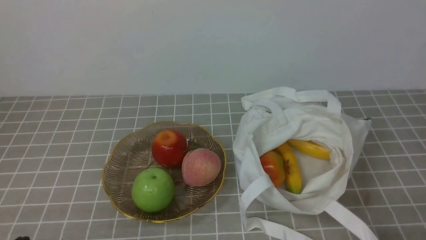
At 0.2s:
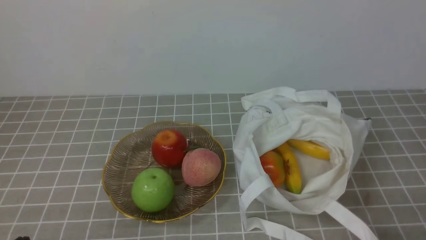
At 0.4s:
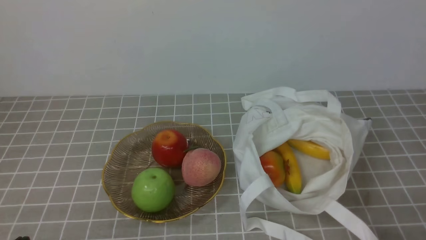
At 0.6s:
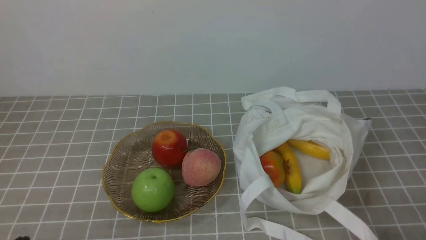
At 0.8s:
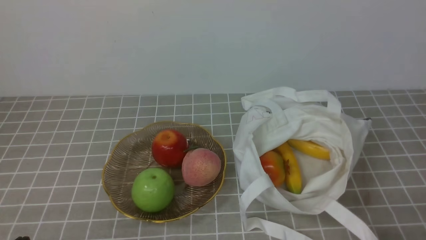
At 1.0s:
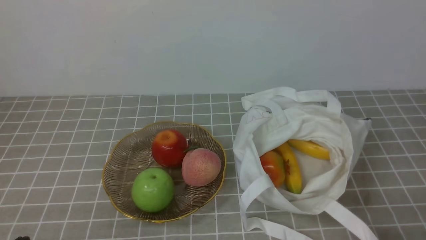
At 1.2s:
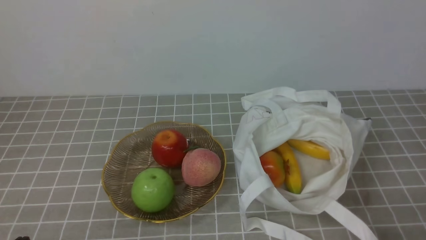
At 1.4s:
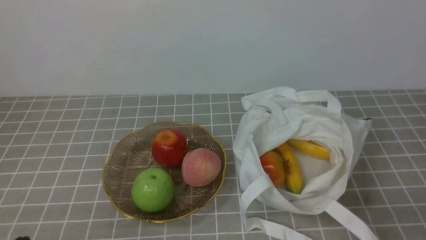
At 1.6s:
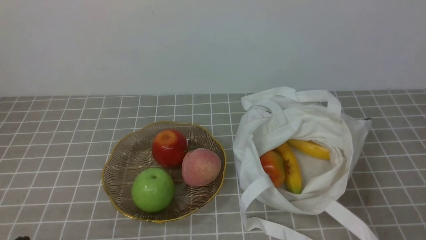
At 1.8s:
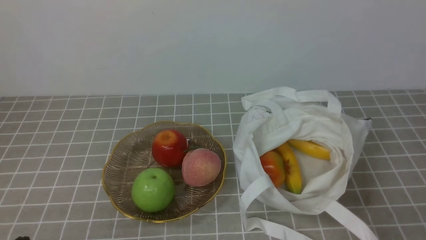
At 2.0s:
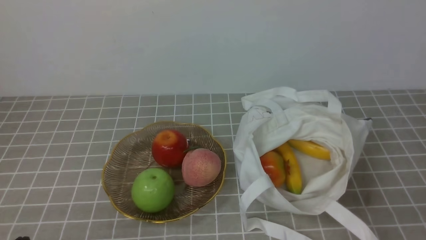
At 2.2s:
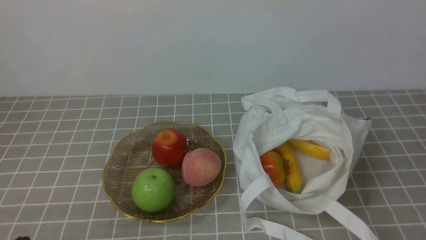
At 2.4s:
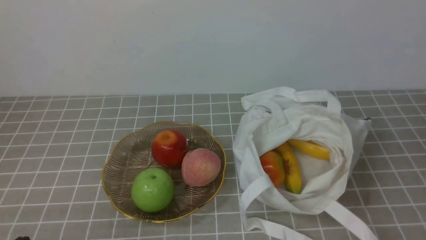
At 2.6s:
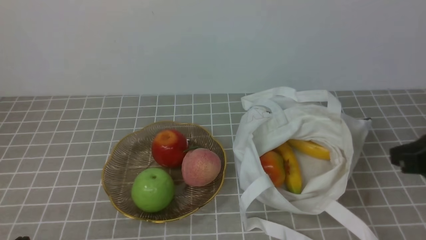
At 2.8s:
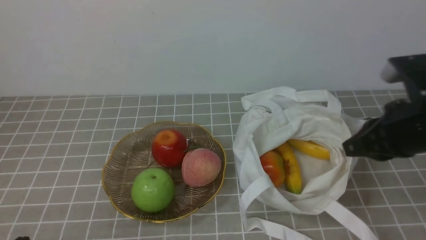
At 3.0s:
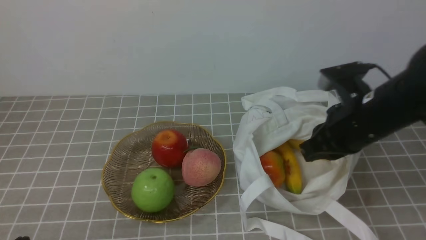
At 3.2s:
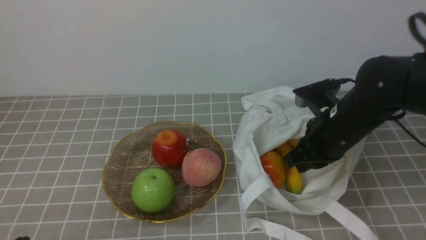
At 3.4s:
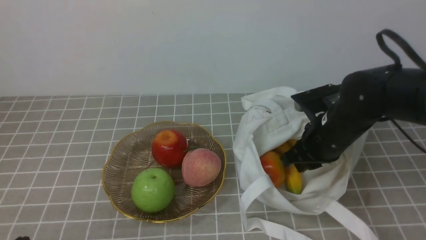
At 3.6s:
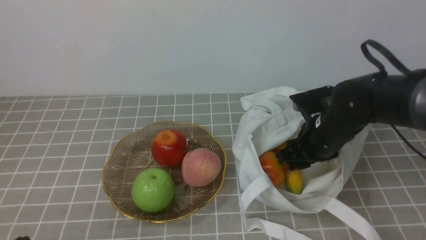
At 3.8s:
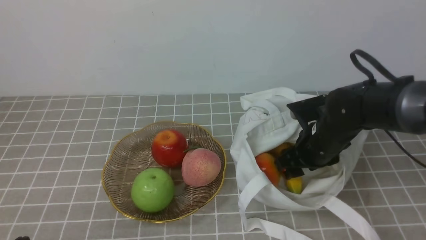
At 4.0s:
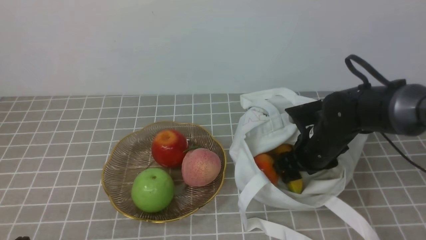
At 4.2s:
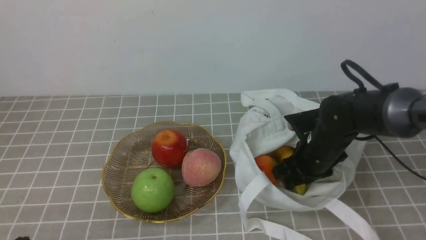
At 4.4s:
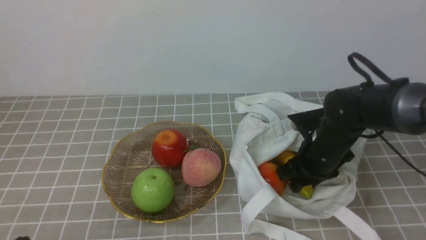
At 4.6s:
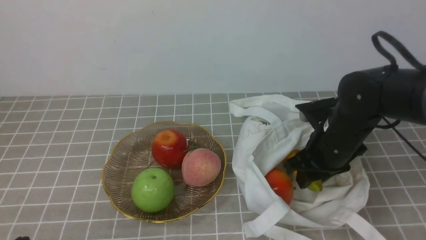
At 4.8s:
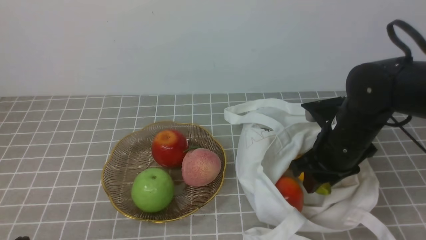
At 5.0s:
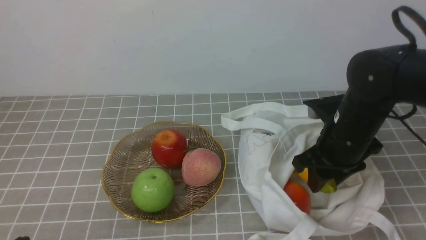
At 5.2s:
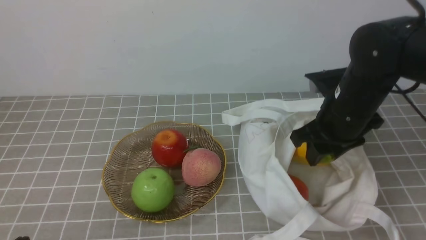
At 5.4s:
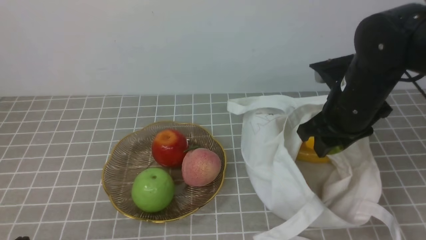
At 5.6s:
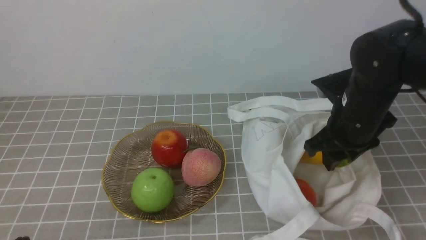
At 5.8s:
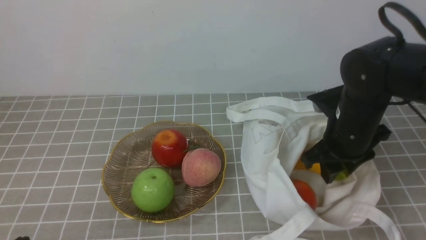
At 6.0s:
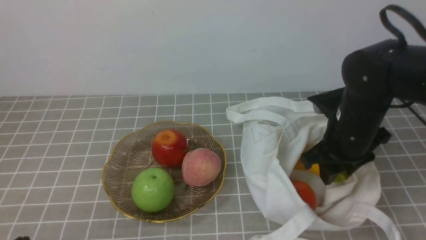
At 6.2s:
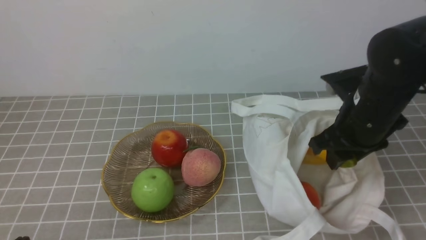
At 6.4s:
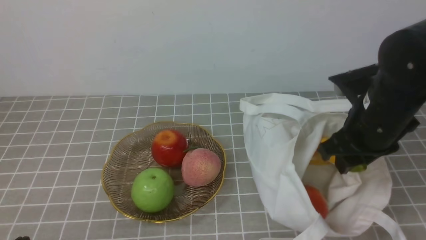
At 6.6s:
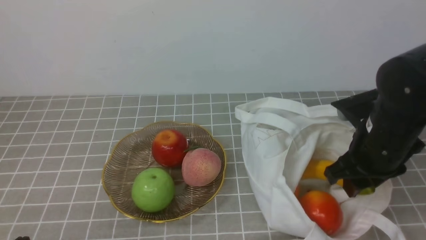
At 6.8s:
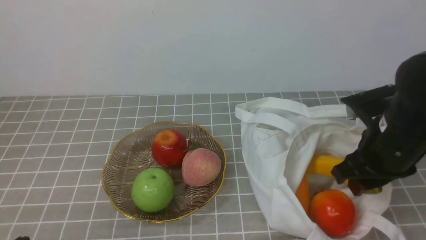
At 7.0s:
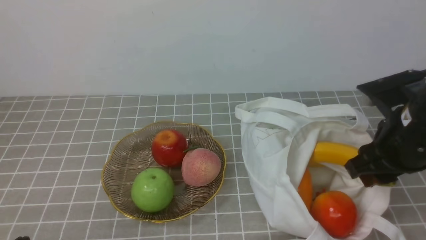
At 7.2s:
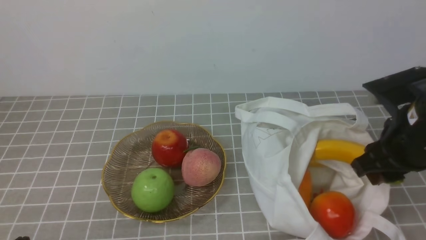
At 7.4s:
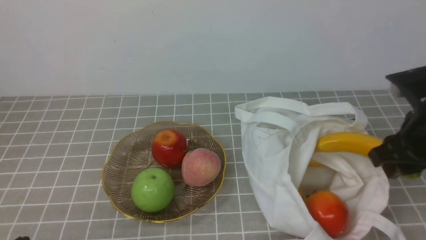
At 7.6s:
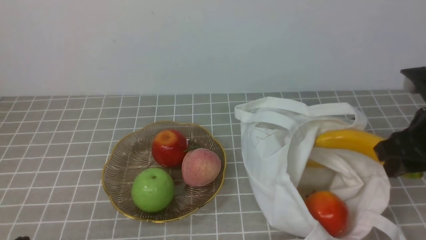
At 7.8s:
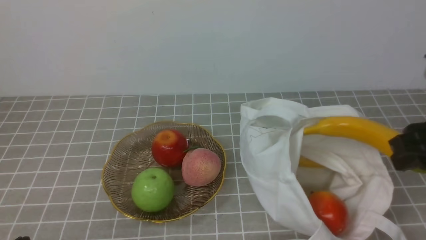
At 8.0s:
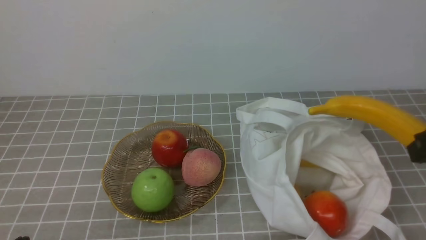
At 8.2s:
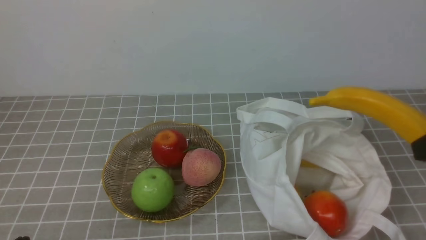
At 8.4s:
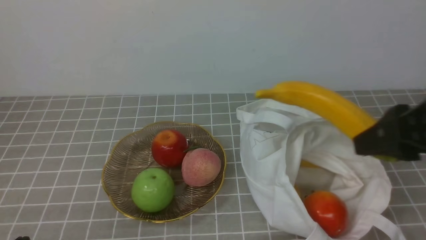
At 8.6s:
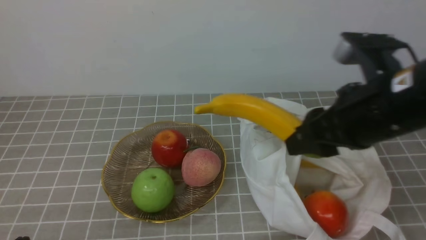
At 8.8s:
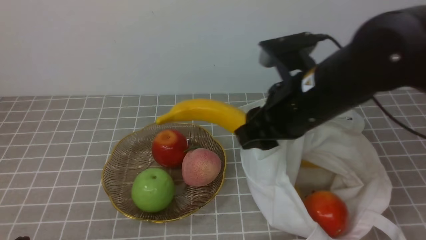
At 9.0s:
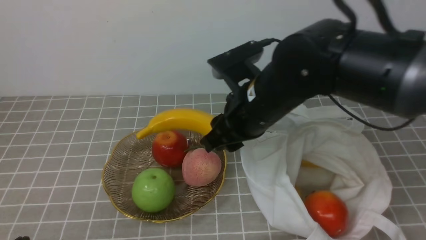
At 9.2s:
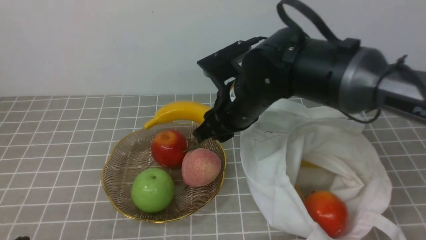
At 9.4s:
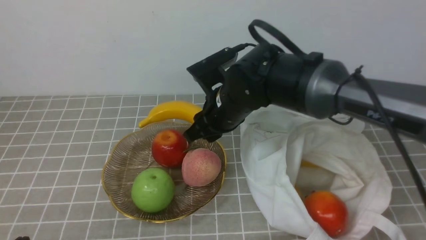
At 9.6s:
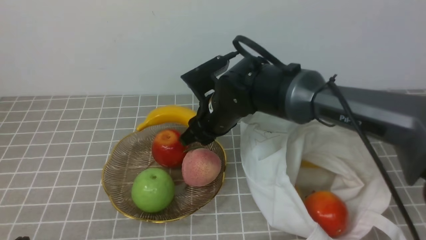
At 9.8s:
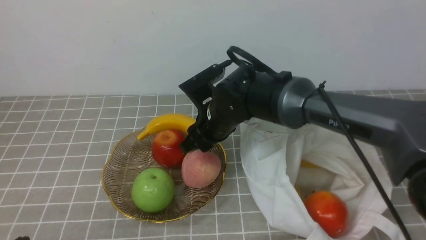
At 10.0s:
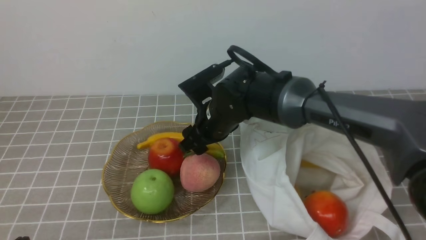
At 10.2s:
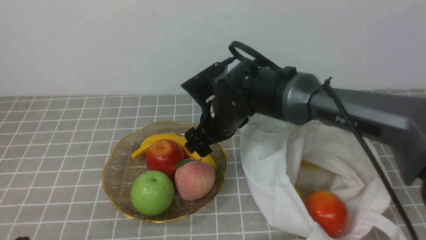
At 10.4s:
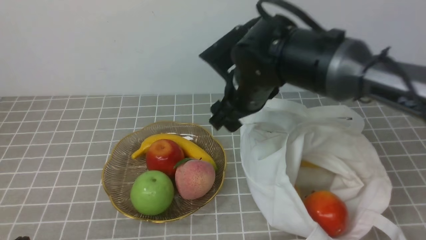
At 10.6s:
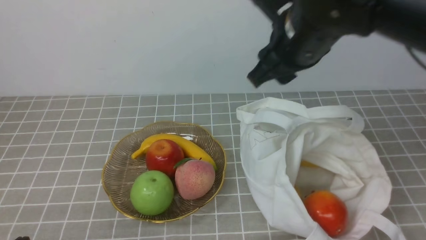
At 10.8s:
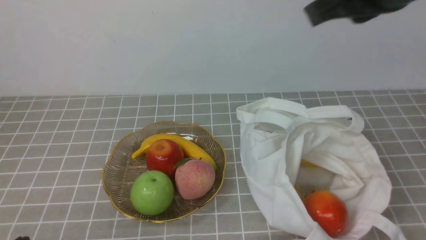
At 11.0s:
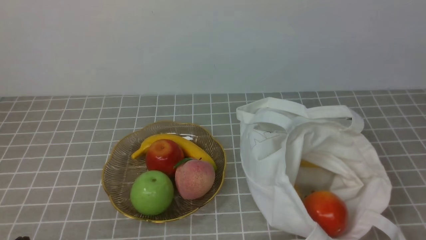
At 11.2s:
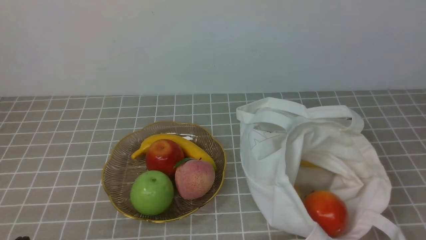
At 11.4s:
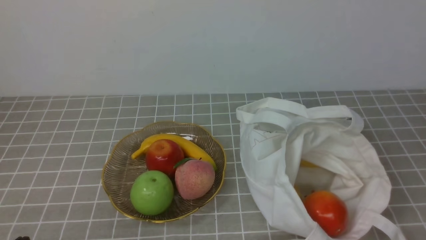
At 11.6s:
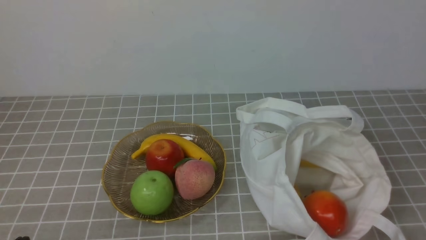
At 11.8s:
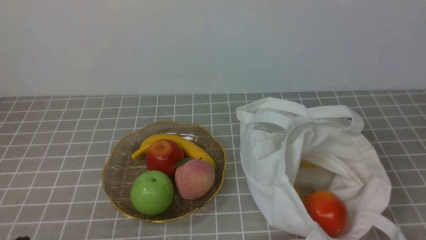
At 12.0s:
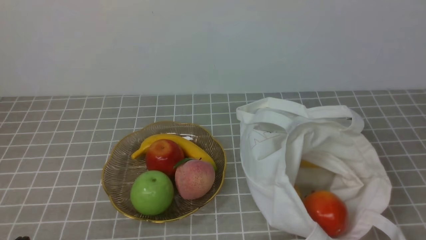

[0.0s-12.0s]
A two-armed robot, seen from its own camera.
Step, 0.0s to 4.4s: use the right arm to grab a banana from the bag.
Step, 4.6s to 10.0s: use the right arm to put the banana into the empty plate on the right.
1.6s to 3.0s: The right gripper moves forward and to the left, approximately 25 cm.
3.0s to 4.4s: The right gripper is displaced downward by some 10 cm, and opens.
4.4s to 6.0s: The right gripper is displaced upward by about 5 cm.
6.0s to 7.6s: The right gripper is displaced backward, upward and to the right by approximately 10 cm.
7.6s to 9.0s: The right gripper moves to the left, approximately 20 cm.
9.0s to 10.4s: The right gripper goes downward and returns, some 10 cm each way, and opens its fingers.
10.4s to 12.0s: The right gripper shifts some 40 cm backward and to the right, and closes.

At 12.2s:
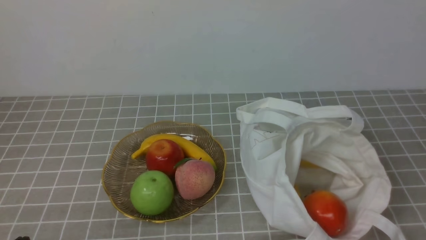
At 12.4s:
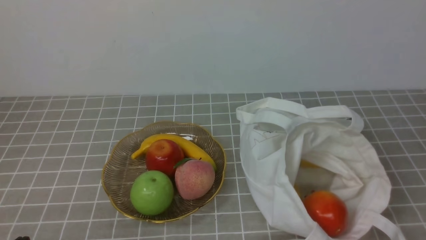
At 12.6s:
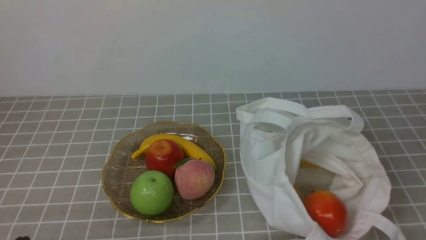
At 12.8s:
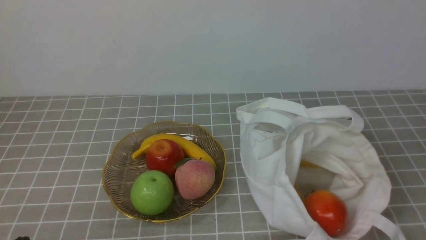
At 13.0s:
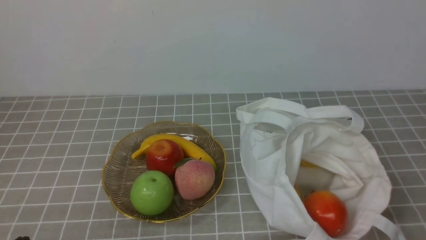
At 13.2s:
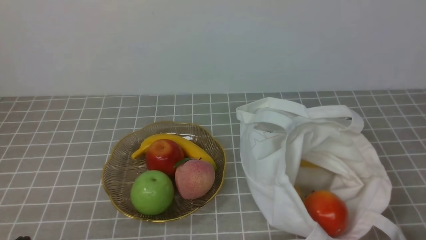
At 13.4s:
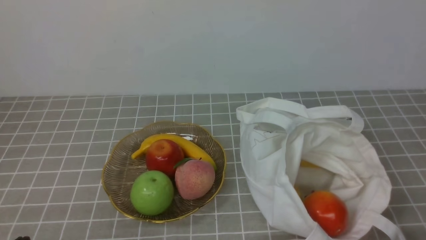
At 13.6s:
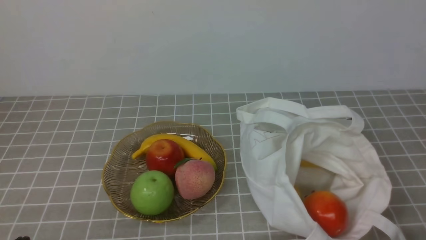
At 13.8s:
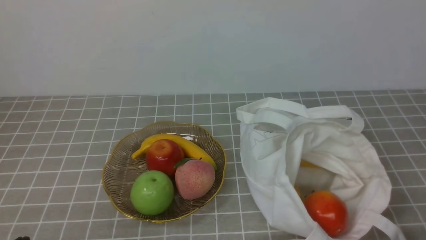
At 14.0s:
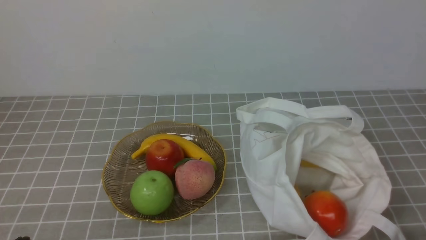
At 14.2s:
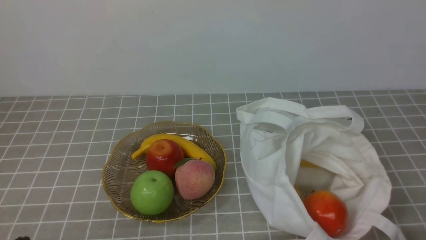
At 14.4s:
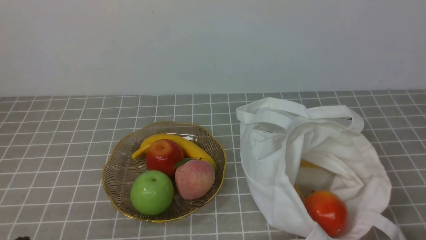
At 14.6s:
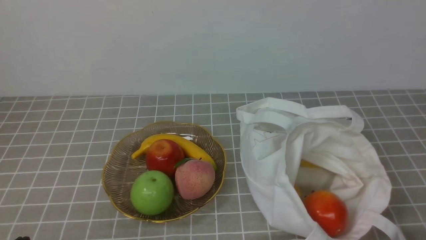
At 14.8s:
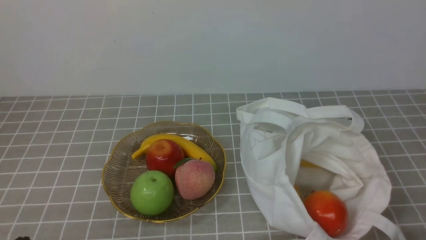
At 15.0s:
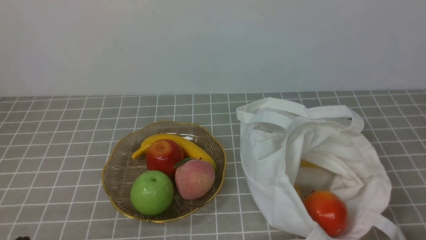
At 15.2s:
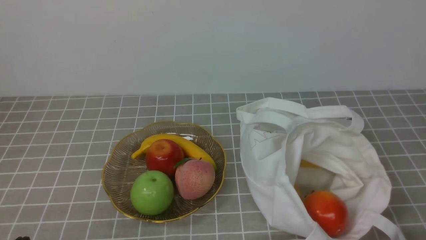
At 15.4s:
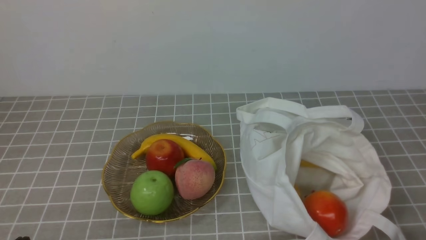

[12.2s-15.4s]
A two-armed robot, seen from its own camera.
13.8s to 15.4s: The two grippers keep their place.

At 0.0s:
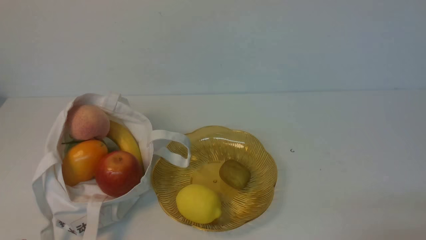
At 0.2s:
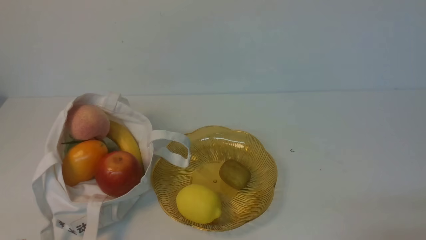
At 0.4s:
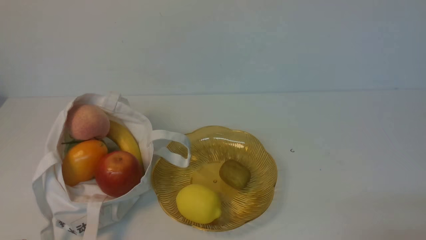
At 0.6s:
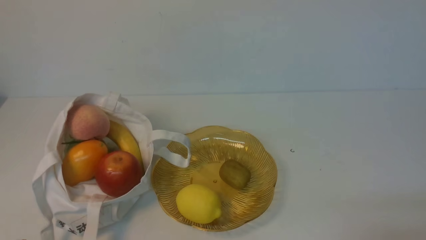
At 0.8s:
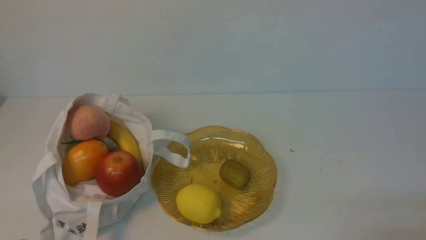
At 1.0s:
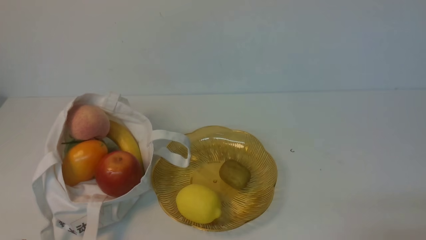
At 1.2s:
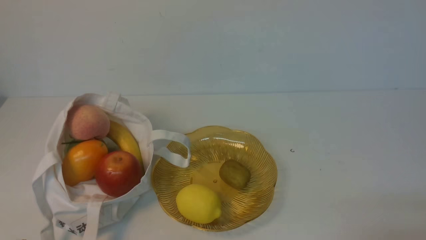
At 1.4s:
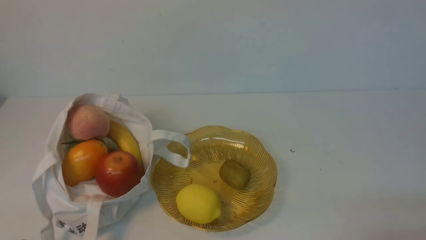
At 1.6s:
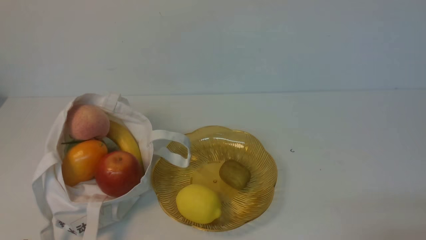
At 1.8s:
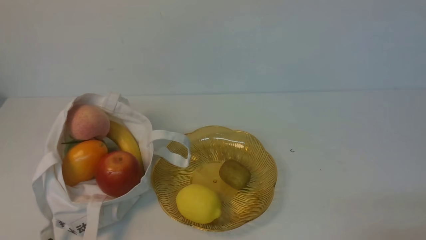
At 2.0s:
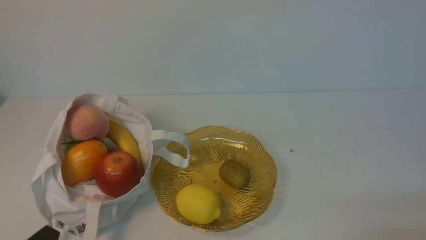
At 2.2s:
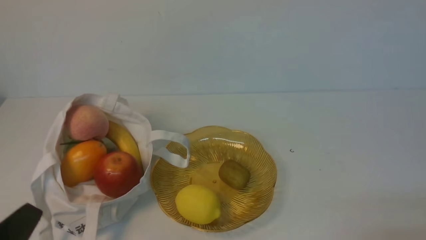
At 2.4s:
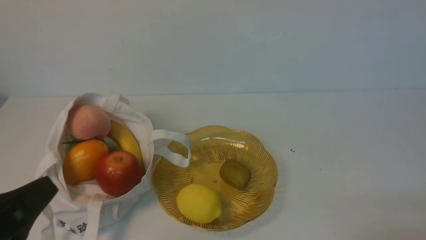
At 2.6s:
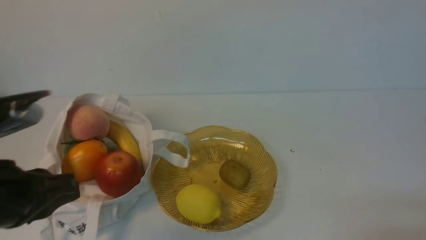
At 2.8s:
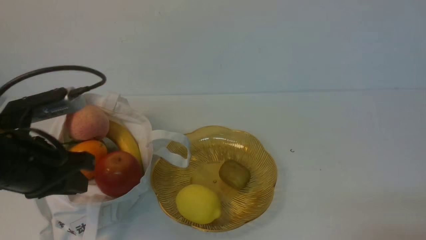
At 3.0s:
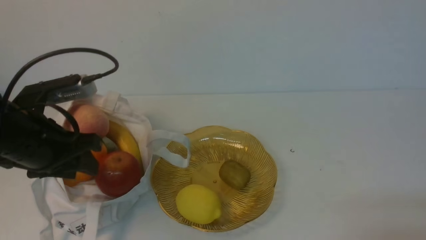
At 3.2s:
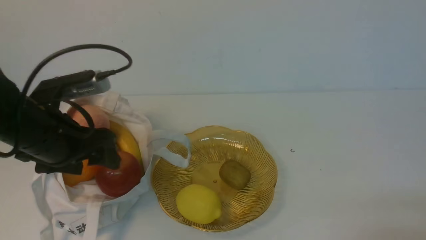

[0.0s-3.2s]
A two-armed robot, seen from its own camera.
1.6s to 3.2s: The left gripper shifts about 25 cm forward and upward, and opens up.
